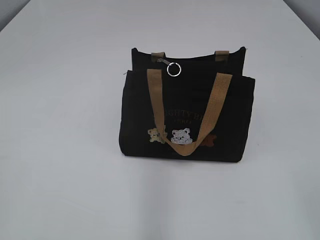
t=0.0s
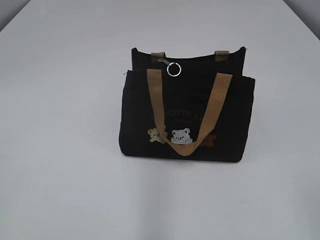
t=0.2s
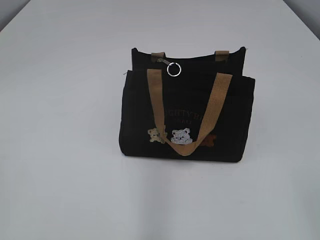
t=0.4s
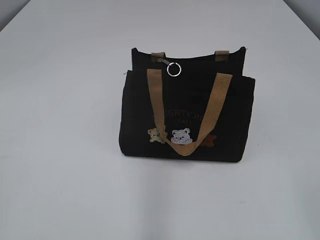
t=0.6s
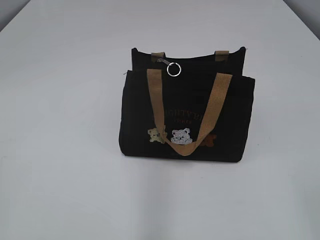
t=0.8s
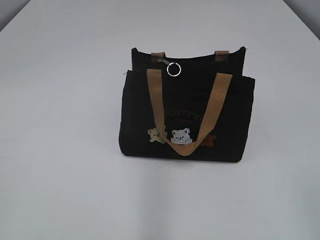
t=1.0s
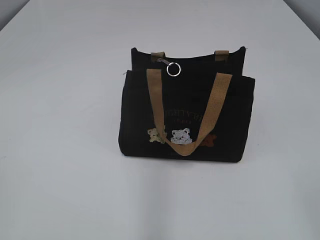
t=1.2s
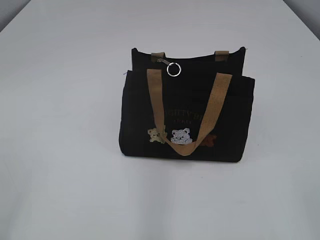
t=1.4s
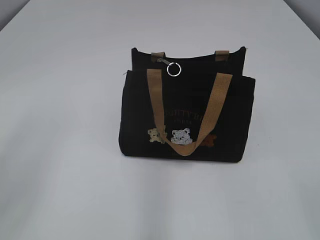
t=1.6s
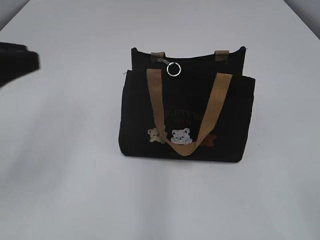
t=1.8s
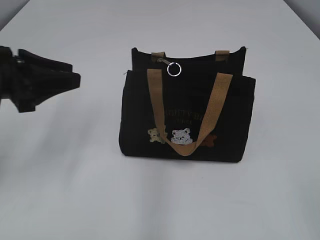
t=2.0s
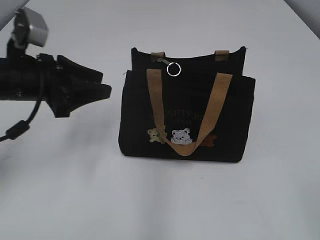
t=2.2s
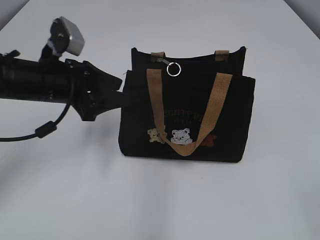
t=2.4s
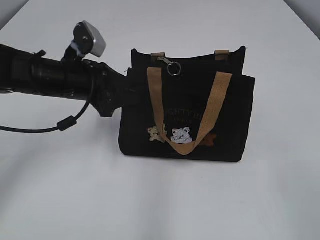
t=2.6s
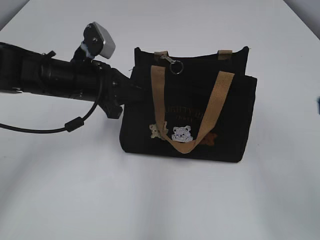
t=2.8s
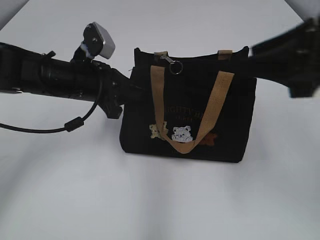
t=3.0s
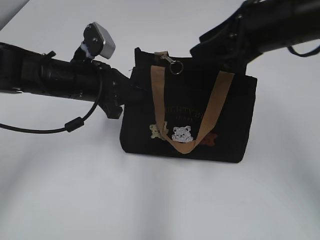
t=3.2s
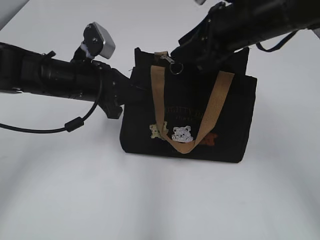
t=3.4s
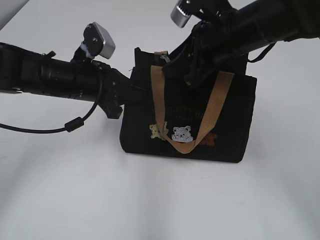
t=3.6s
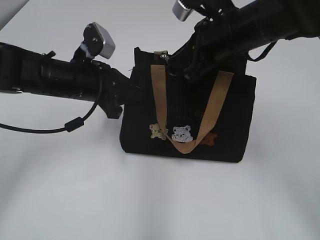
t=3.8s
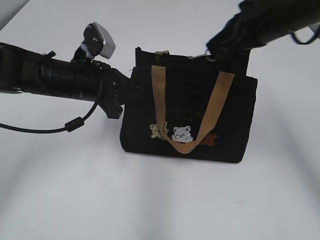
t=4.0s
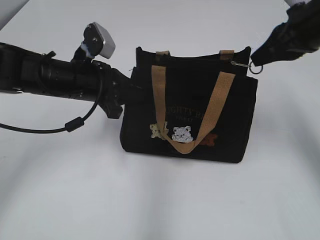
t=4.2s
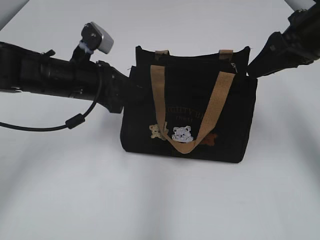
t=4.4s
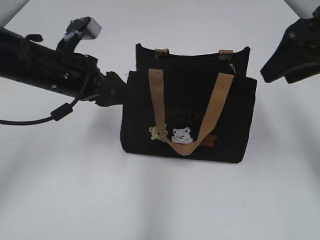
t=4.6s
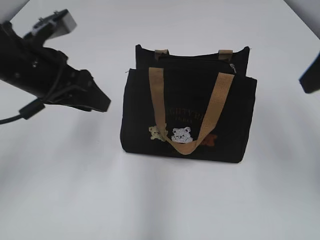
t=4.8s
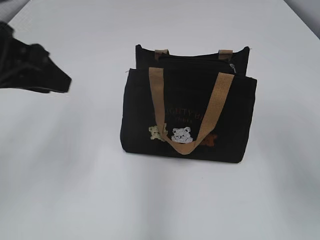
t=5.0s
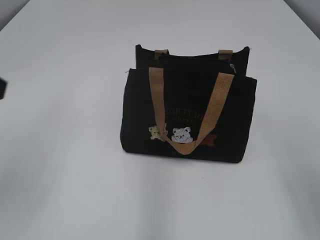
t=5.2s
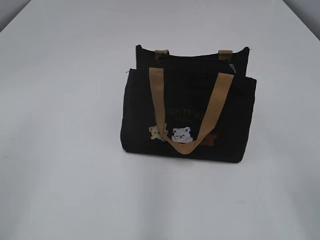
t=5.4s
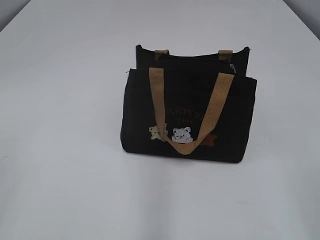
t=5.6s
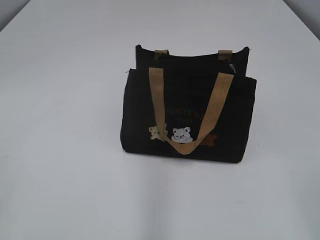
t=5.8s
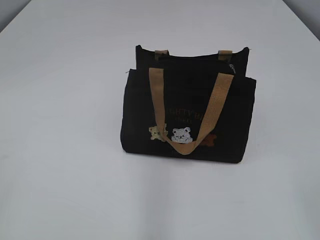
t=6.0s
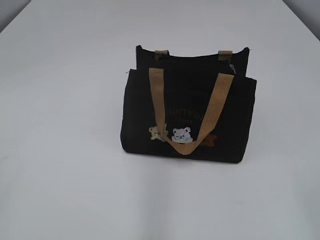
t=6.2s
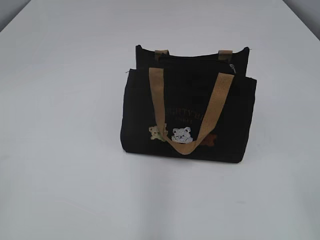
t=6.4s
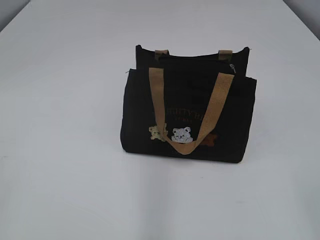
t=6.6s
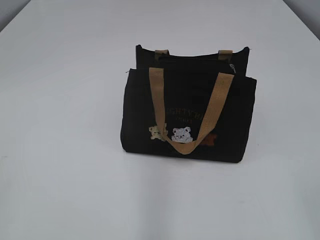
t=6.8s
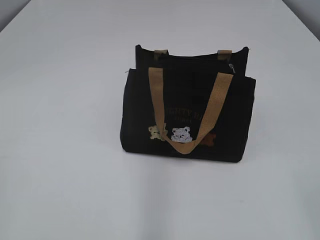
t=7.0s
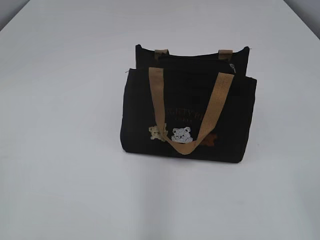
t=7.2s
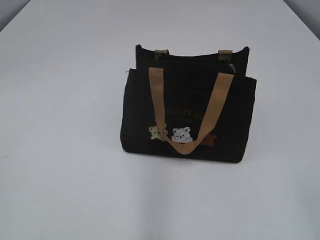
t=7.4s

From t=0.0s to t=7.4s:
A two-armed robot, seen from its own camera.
Step, from t=0.0s to t=4.2s: Pull open the zipper with your right hand.
Step, from t=4.4s to t=4.6s: Hold the bag with your left hand.
From t=1.4s to t=3.0s: The right gripper heads forward, covering roughly 25 cm. The left gripper travels forward and to the right by roughly 35 cm, and closes its fingers.
From t=3.0s to t=4.4s: The right gripper shifts some 10 cm forward, and closes, then reopens.
From t=4.4s to t=6.0s: The left gripper heads backward and to the left, covering approximately 40 cm, and opens its fingers; the right gripper heads backward, covering about 35 cm.

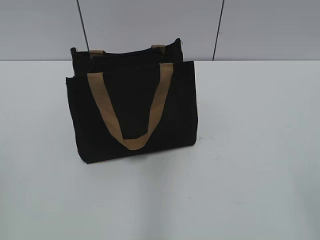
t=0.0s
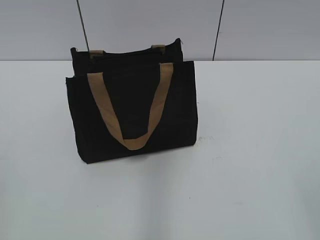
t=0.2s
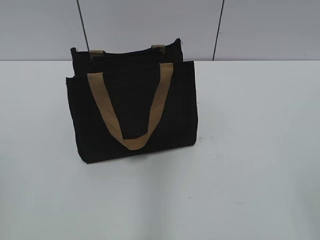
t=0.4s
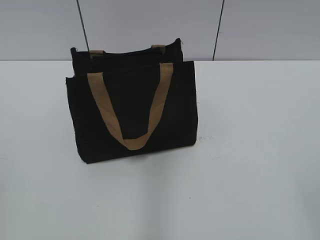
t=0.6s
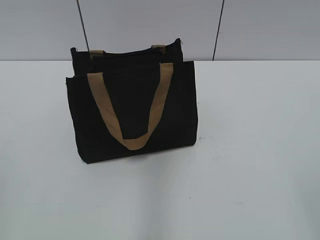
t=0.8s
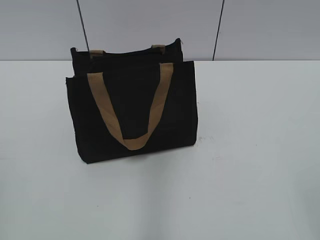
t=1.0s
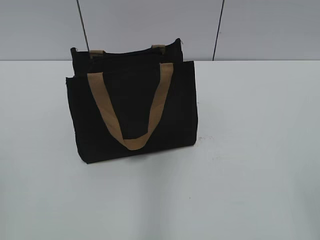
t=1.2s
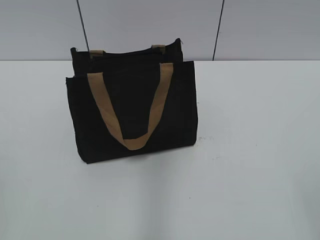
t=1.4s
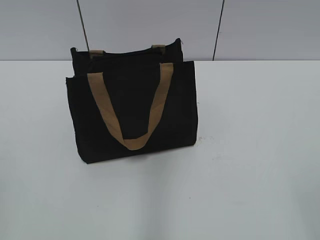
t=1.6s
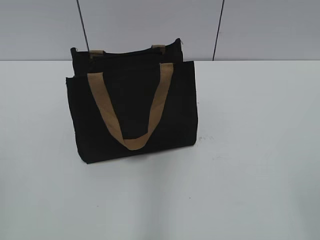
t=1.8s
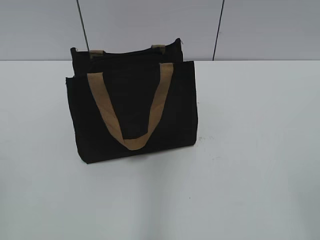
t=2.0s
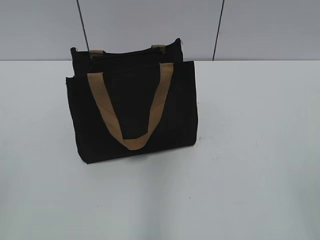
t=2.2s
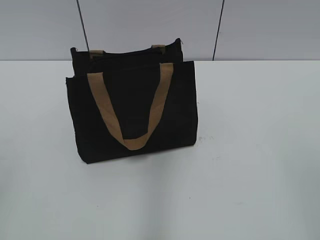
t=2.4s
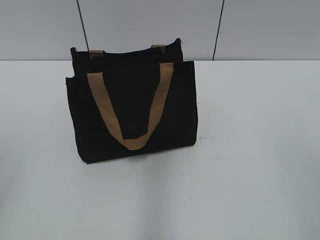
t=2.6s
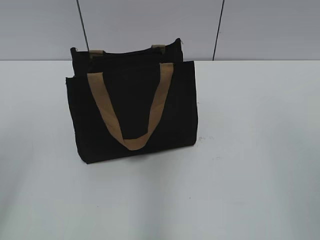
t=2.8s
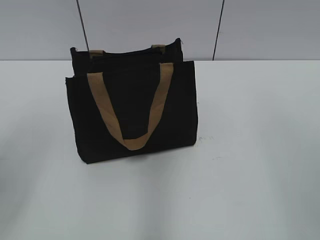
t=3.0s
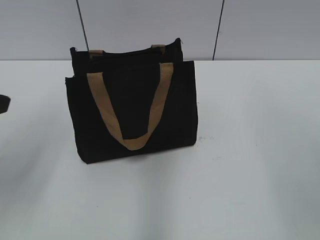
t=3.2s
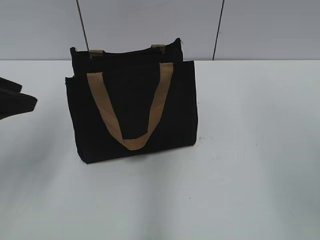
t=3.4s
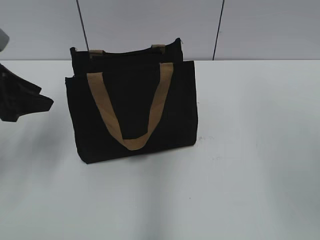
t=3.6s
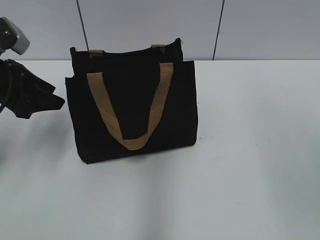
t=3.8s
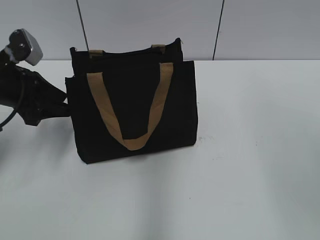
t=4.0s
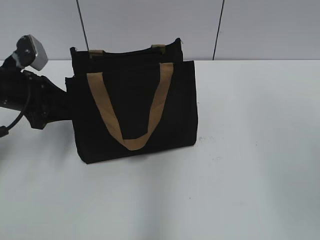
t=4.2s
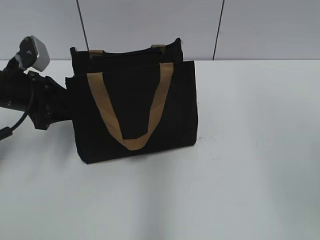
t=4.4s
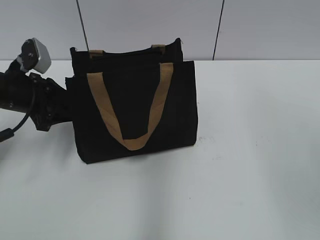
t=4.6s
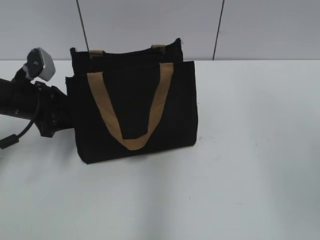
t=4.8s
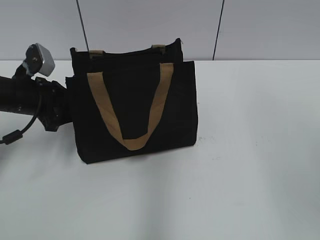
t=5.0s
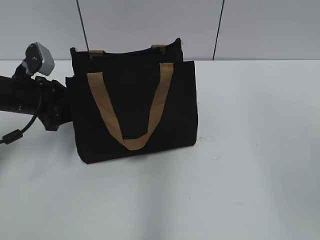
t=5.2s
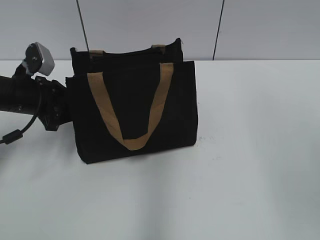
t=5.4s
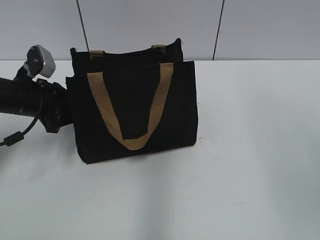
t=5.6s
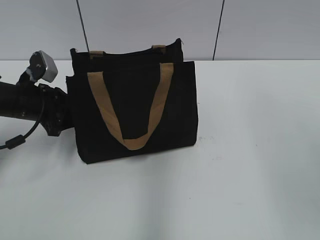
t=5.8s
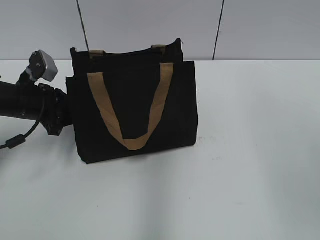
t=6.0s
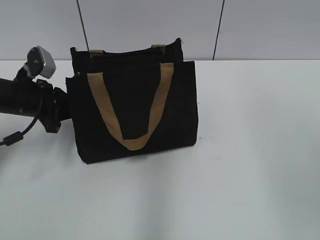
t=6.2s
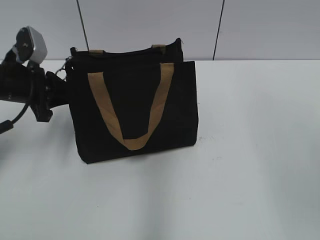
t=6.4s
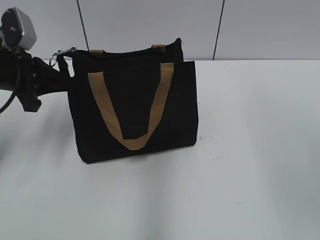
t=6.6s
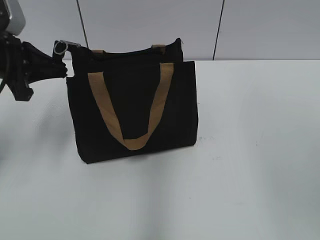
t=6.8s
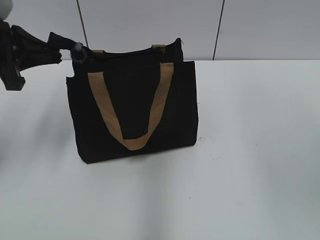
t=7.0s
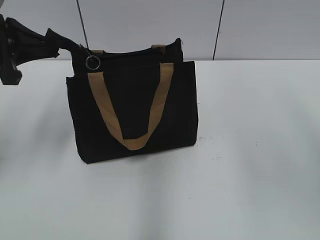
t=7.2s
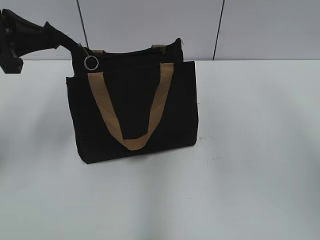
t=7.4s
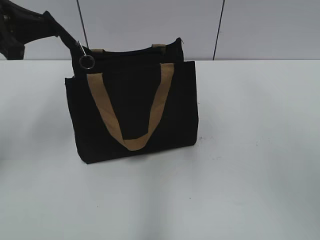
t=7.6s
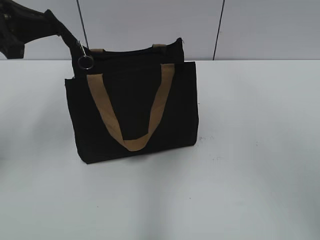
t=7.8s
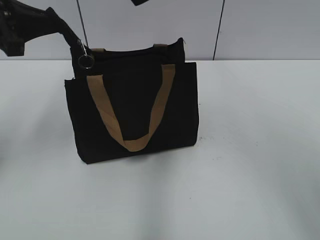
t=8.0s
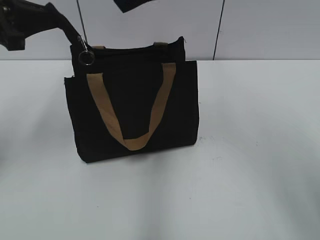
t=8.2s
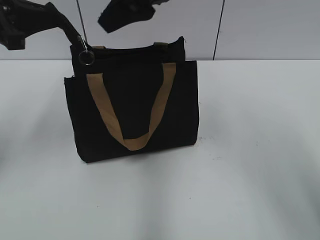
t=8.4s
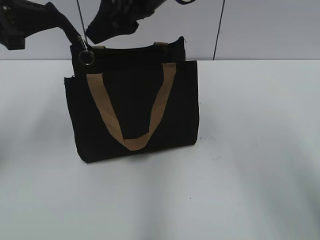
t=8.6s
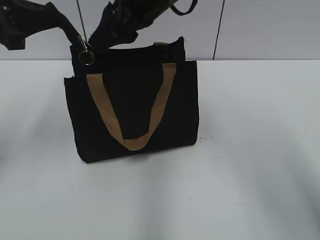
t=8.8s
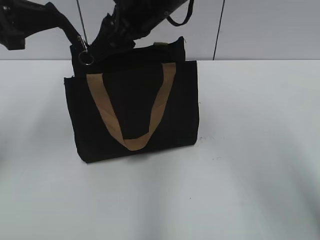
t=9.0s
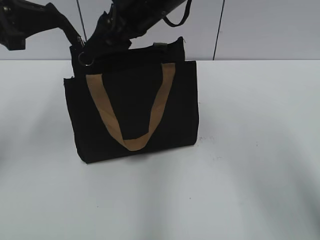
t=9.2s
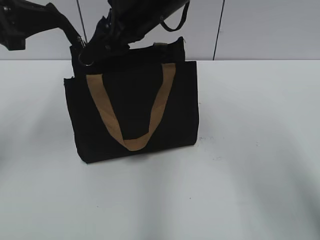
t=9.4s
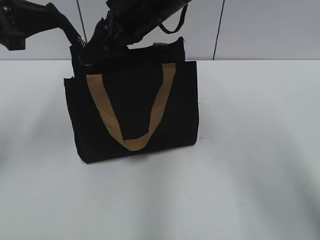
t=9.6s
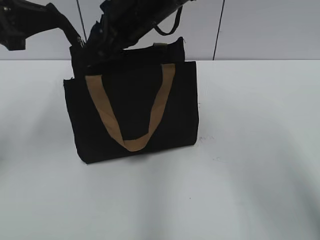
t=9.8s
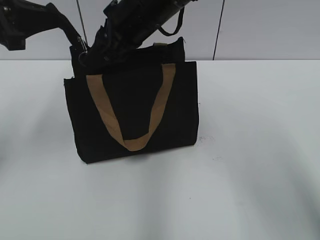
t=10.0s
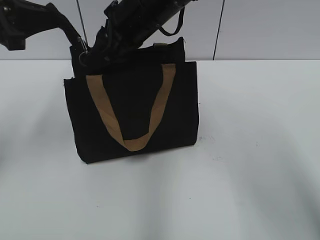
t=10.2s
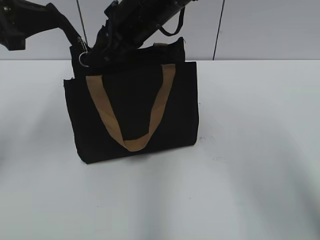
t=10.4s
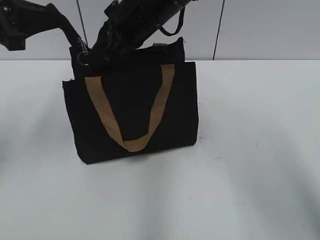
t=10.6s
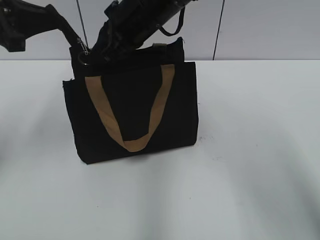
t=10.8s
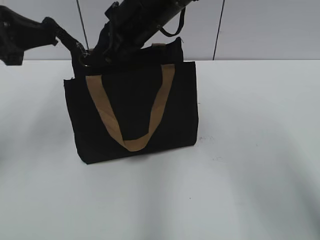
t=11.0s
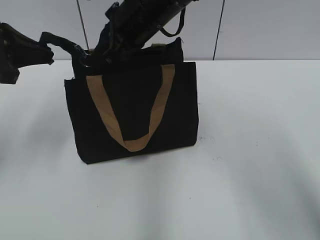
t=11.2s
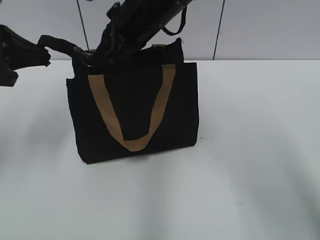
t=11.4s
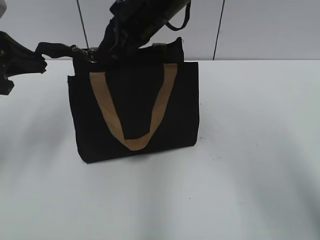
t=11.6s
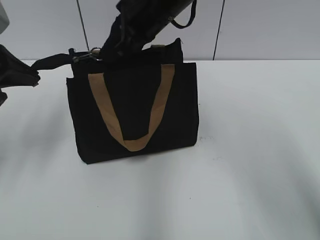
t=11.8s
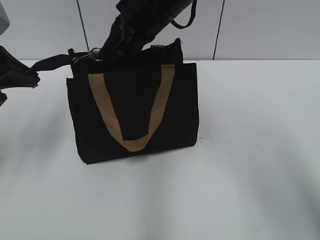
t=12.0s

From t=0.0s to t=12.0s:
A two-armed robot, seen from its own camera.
From t=1.6s to t=3.0s: The left gripper heads forward, covering roughly 15 cm, and opens up.
From t=3.0s to t=4.4s: The left gripper is displaced forward and downward by about 25 cm.
From t=4.4s to t=6.0s: The grippers stay close to where they were, moving slightly.
From t=6.0s to t=7.6s: The left gripper goes about 15 cm upward. The right gripper travels to the left and forward by roughly 20 cm.
From t=7.6s to t=9.0s: The right gripper moves downward, forward and to the left, about 20 cm.
From t=9.0s to t=10.4s: The grippers stay close to where they were, moving slightly.
From t=10.4s to t=12.0s: The right gripper closes its fingers.

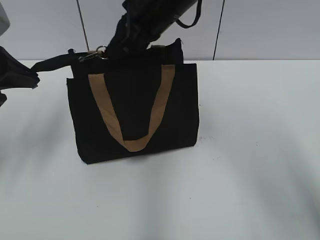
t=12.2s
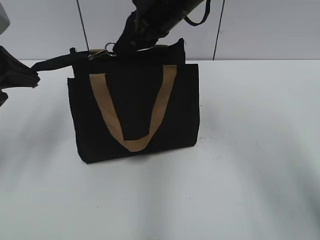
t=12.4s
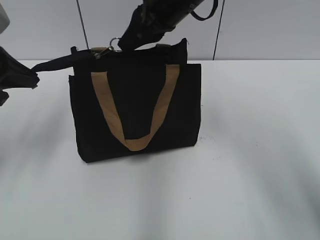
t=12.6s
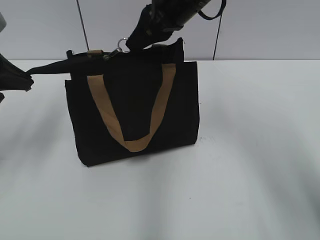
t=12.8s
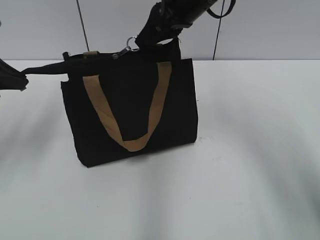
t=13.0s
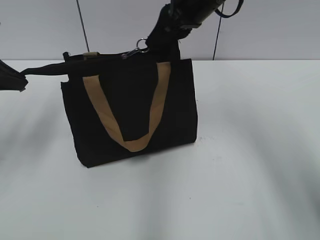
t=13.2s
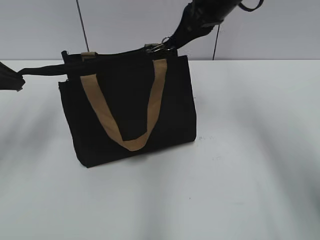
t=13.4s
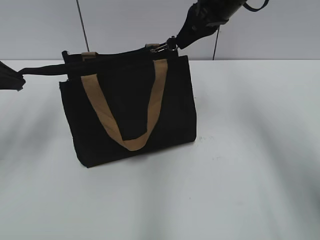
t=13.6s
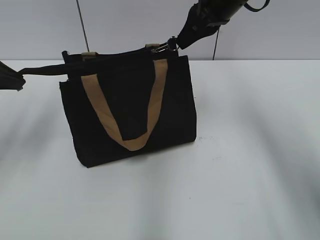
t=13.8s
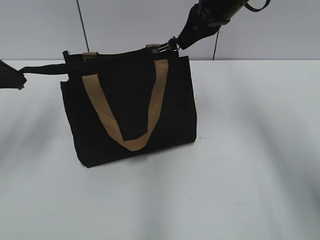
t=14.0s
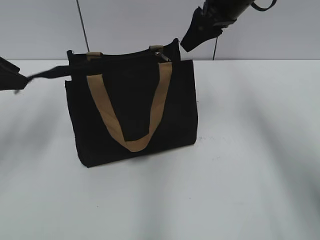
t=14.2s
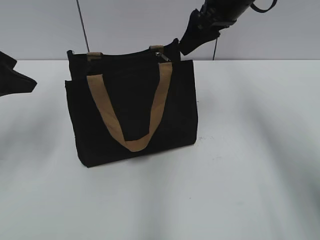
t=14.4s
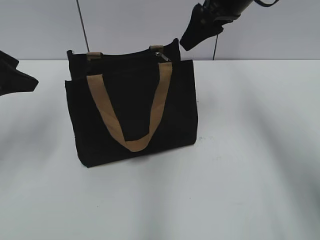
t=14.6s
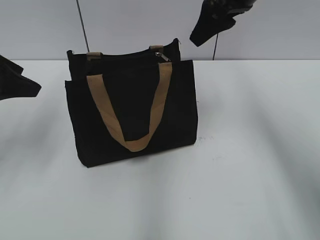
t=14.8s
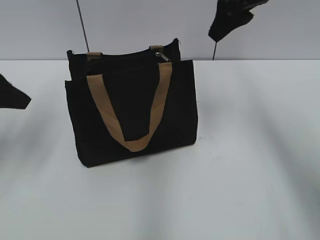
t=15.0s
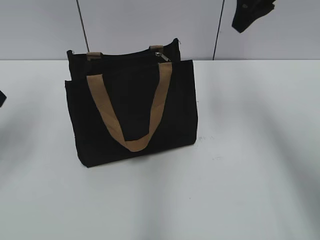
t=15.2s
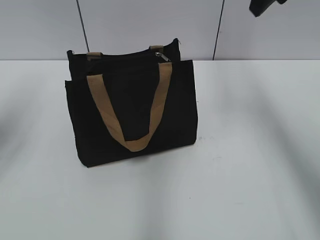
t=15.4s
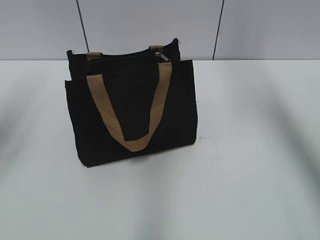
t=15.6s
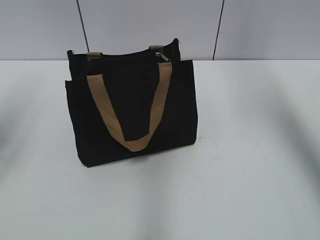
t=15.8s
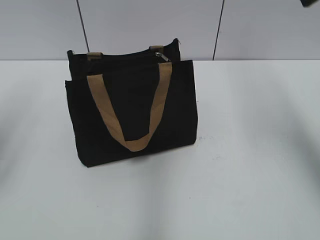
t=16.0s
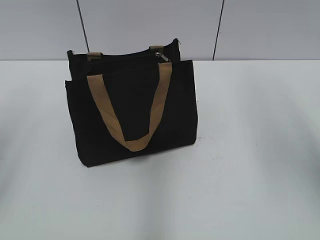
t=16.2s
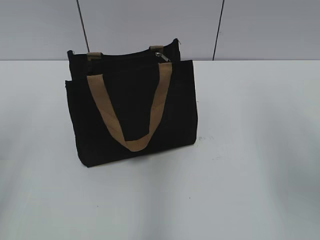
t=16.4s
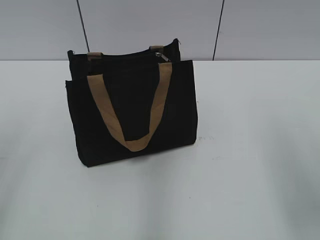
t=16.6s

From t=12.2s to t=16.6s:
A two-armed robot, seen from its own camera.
Step, from t=14.2s to t=14.6s: Grab the zipper with your left hand.
From t=12.2s to t=13.6s: The right gripper heads to the right, covering approximately 10 cm.
From t=13.6s to t=15.2s: The right gripper moves upward and to the right, some 10 cm, and opens its fingers. Meanwhile the left gripper opens.
From t=15.2s to t=16.6s: Both grippers move backward, some 20 cm.
